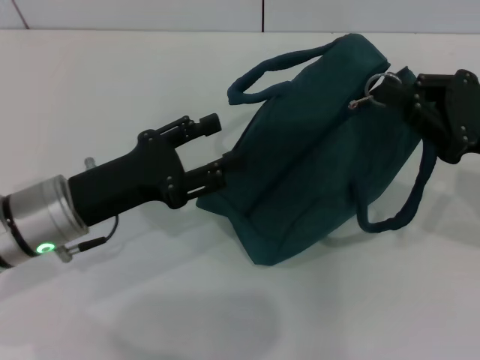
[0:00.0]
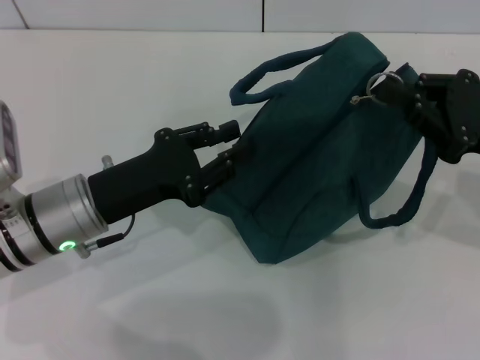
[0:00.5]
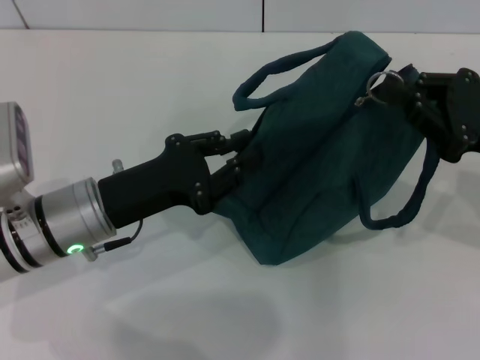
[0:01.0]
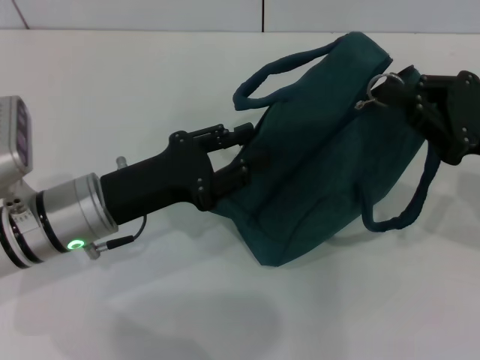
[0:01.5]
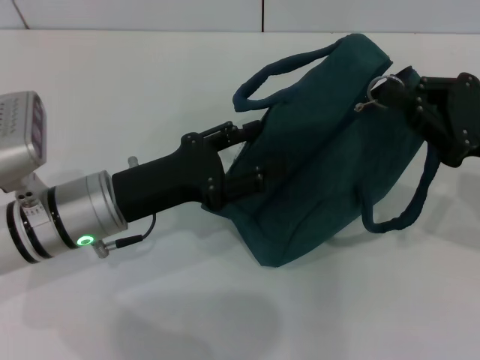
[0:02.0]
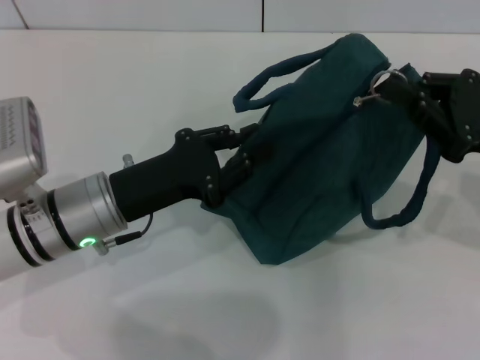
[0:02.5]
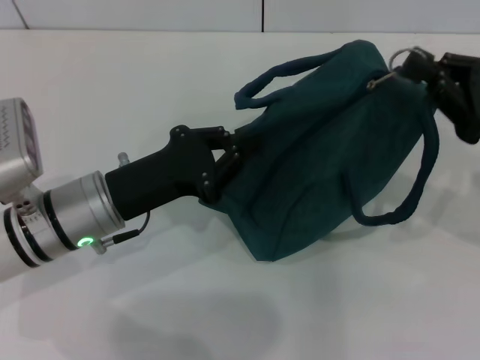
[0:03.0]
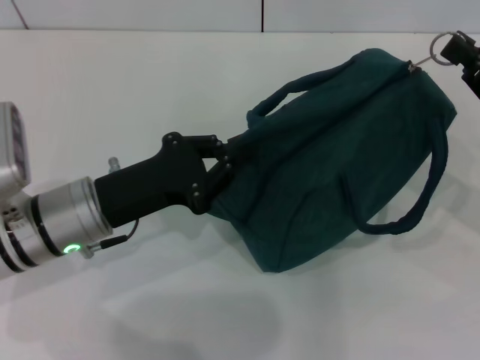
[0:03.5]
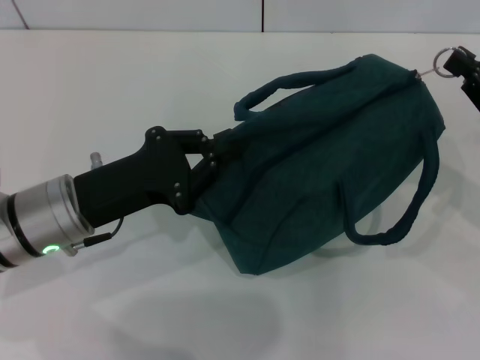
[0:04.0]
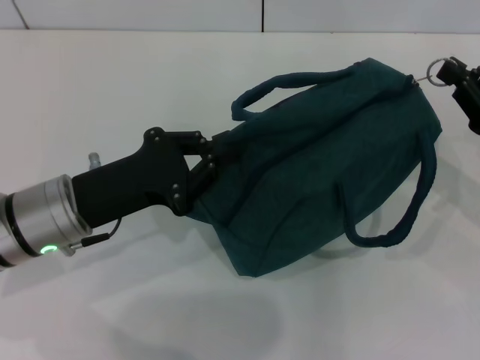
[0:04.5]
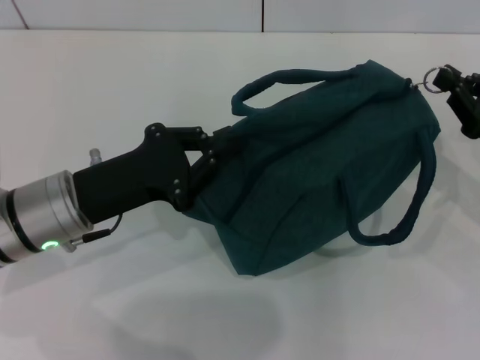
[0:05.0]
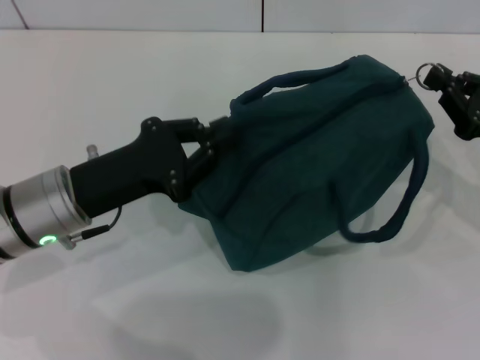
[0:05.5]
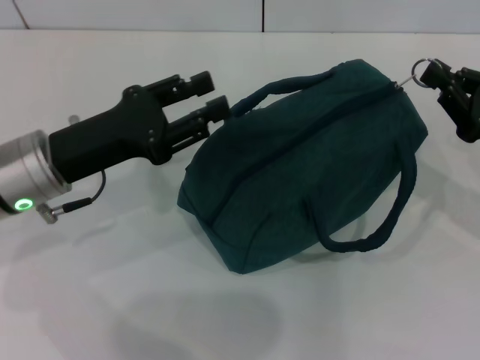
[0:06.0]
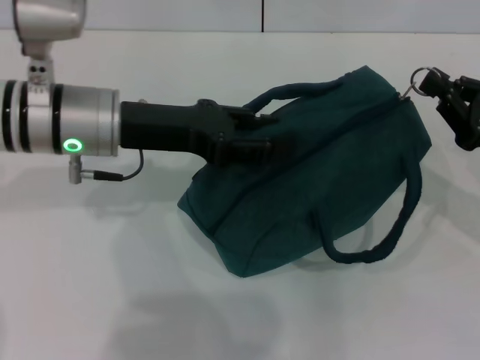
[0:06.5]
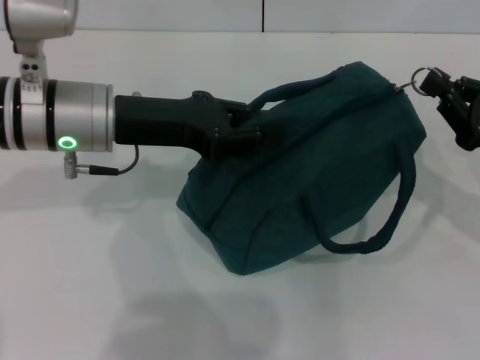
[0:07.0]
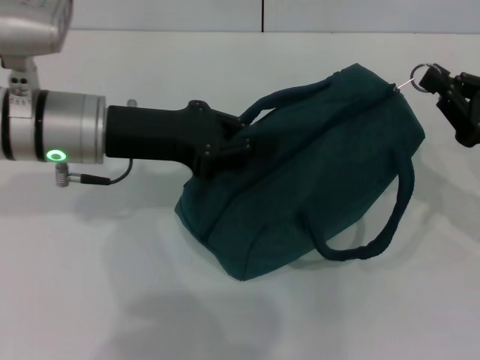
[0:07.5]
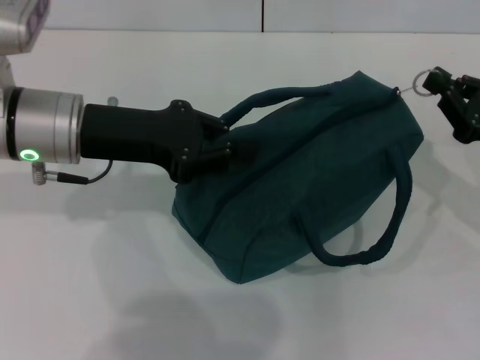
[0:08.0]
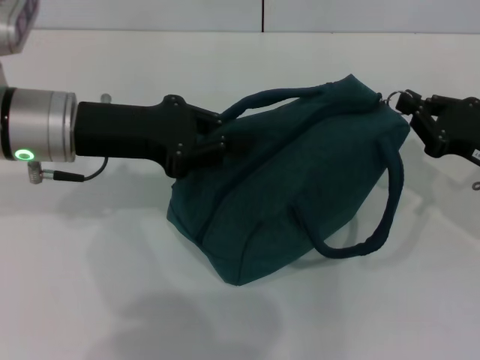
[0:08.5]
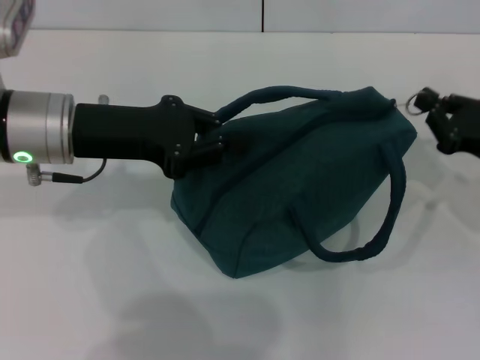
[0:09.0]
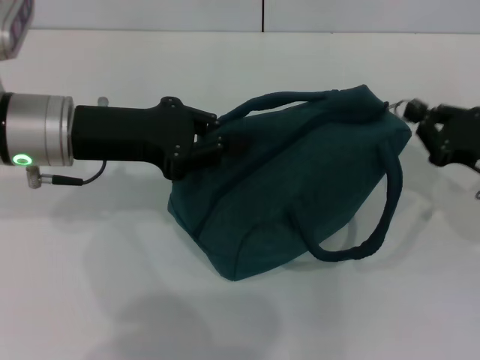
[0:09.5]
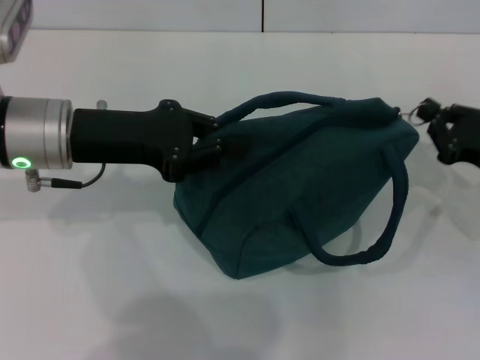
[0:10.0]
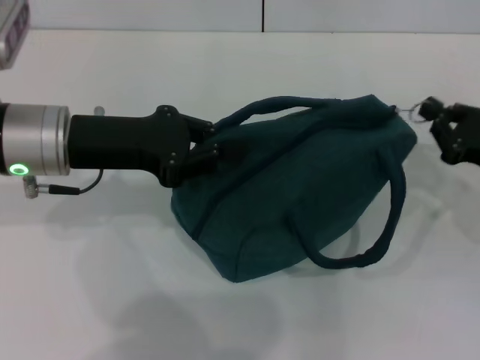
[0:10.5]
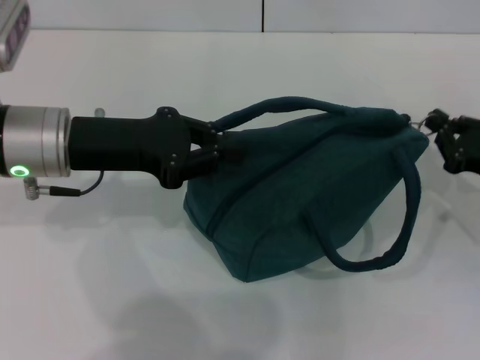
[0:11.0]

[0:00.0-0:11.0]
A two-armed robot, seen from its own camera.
0:00.0 to 0:02.0: The left gripper closes and opens again.
0:02.0 to 0:03.5: The left gripper closes its fingers.
0:03.5 to 0:05.5: The grippers stay close to where they were, moving slightly.
0:05.5 to 0:07.5: The left gripper shifts about 10 cm upward and forward, and opens, then closes once more.
0:07.5 to 0:09.0: The grippers make only small movements.
0:09.0 to 0:11.0: The grippers stay close to where they were, moving slightly.

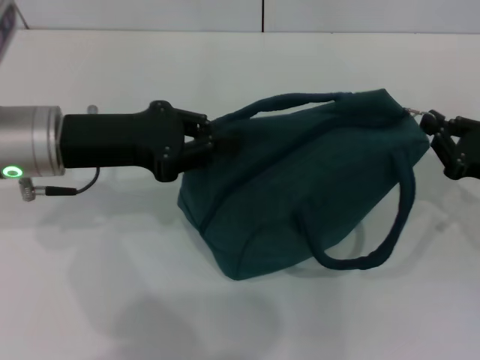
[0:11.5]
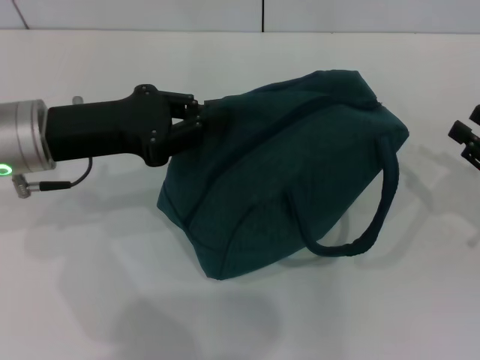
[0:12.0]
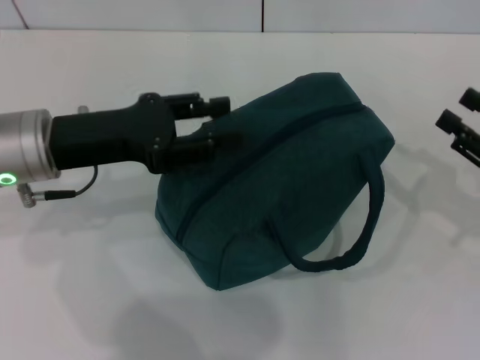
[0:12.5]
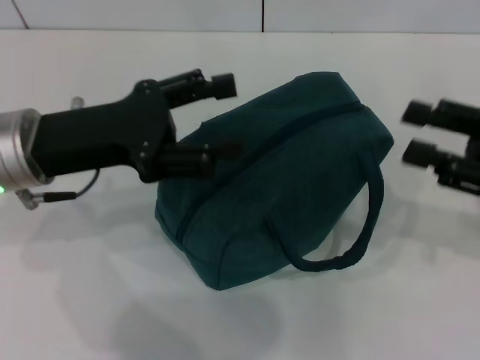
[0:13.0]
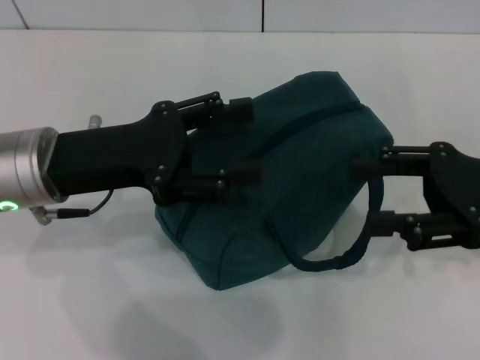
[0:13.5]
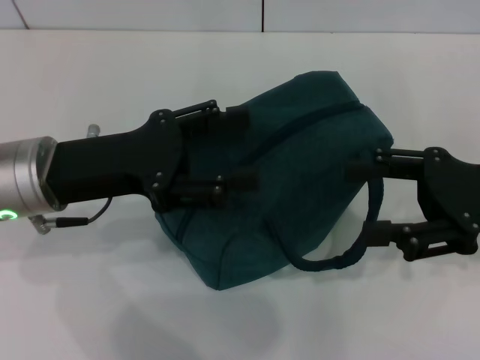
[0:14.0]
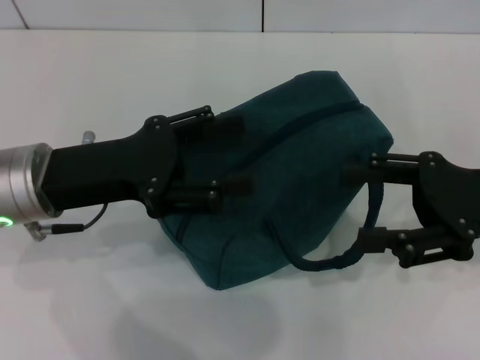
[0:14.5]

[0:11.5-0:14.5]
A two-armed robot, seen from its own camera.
Step, 0:12.0 to 0:12.5: Hold the lunch bag with your left hand.
0:11.5 to 0:13.0: The left gripper opens its fingers. Meanwhile the right gripper travels upward by some 10 cm, and opens.
0:13.0 to 0:14.5: The grippers move only a little.
